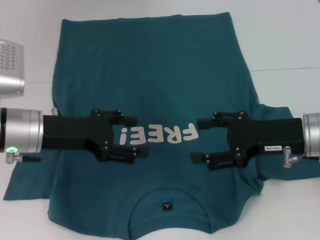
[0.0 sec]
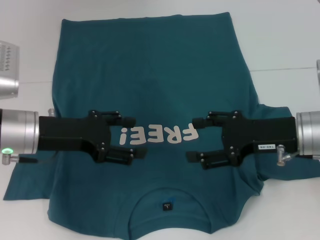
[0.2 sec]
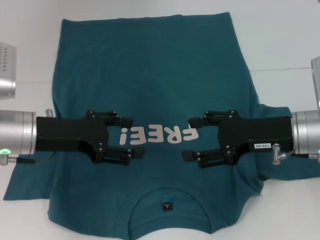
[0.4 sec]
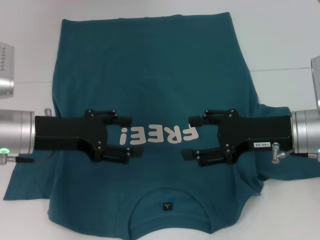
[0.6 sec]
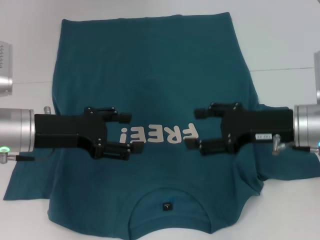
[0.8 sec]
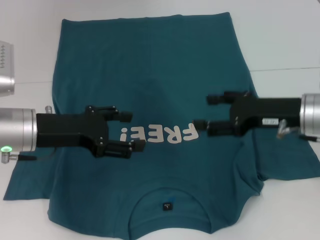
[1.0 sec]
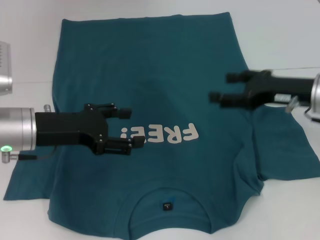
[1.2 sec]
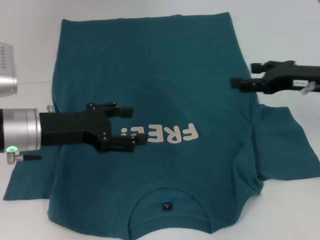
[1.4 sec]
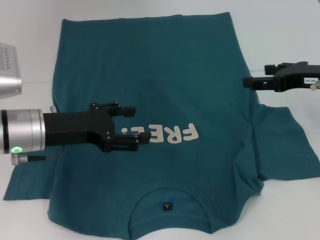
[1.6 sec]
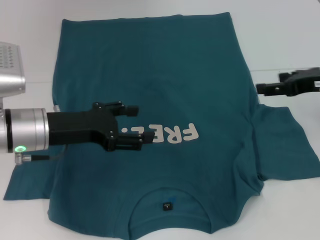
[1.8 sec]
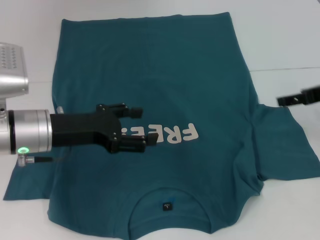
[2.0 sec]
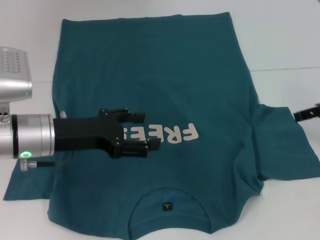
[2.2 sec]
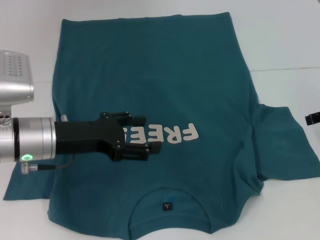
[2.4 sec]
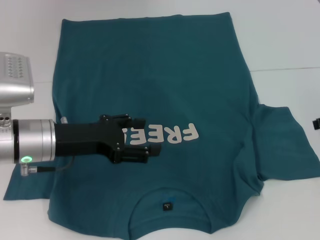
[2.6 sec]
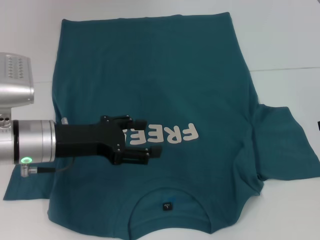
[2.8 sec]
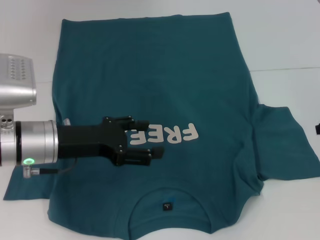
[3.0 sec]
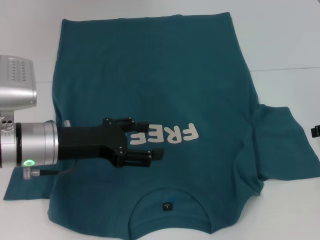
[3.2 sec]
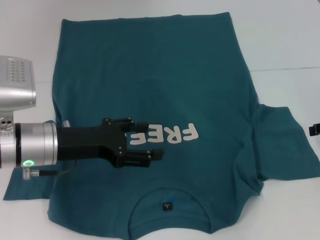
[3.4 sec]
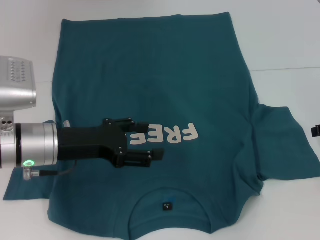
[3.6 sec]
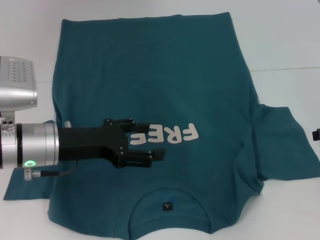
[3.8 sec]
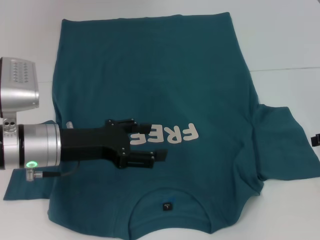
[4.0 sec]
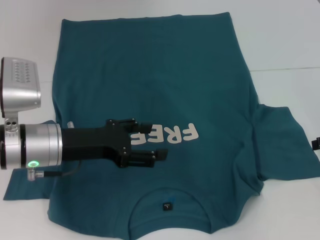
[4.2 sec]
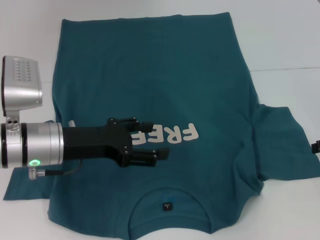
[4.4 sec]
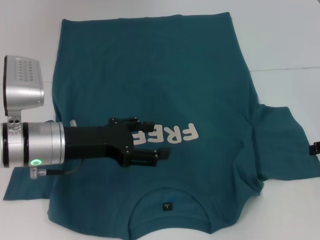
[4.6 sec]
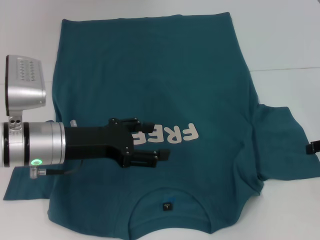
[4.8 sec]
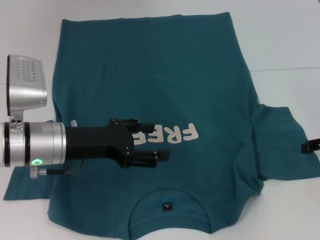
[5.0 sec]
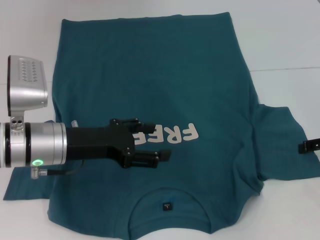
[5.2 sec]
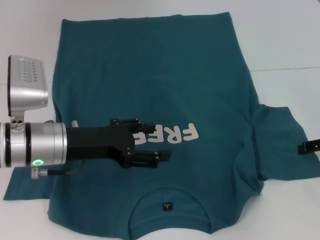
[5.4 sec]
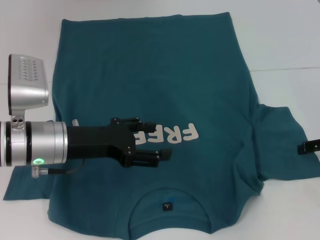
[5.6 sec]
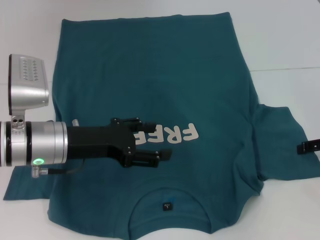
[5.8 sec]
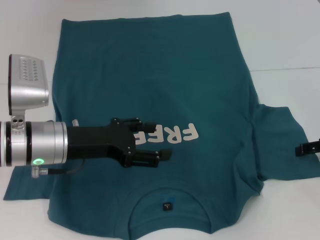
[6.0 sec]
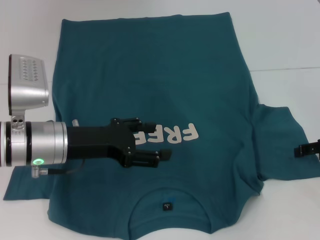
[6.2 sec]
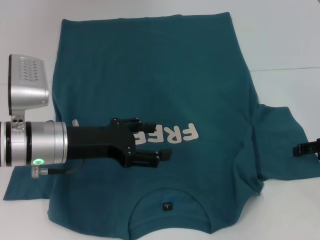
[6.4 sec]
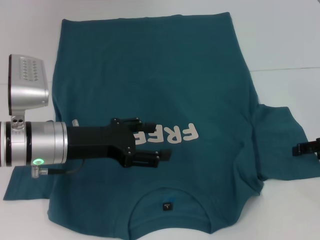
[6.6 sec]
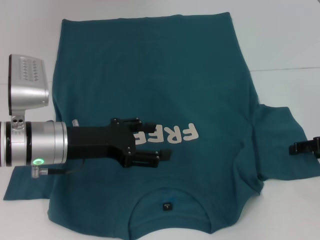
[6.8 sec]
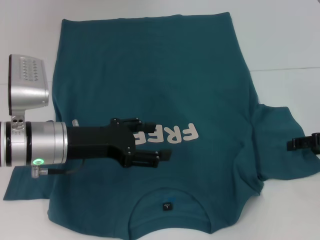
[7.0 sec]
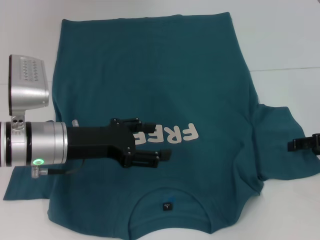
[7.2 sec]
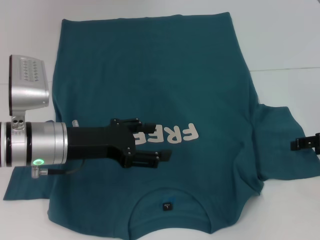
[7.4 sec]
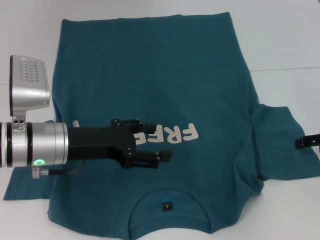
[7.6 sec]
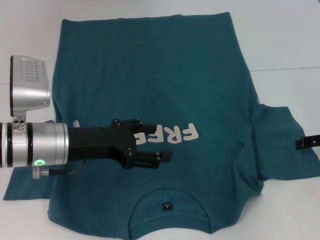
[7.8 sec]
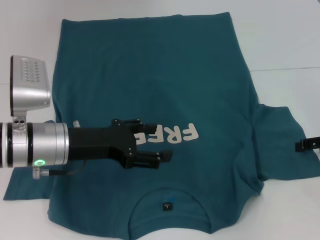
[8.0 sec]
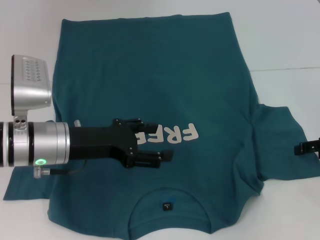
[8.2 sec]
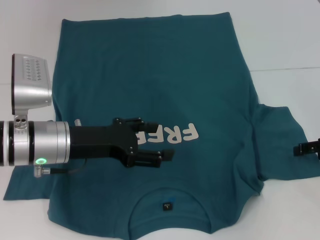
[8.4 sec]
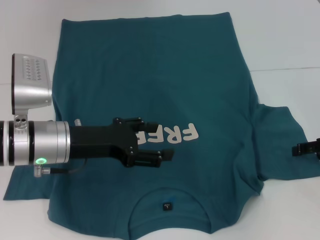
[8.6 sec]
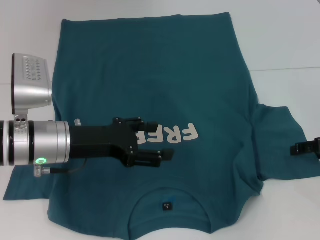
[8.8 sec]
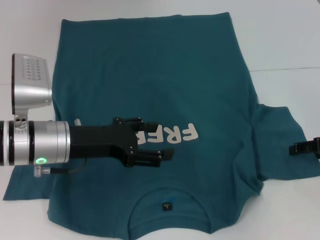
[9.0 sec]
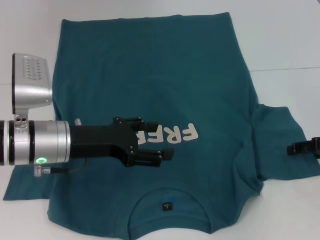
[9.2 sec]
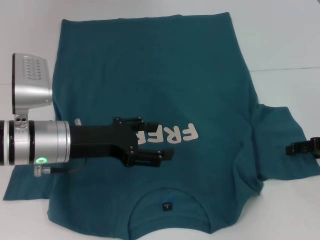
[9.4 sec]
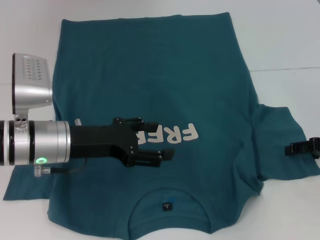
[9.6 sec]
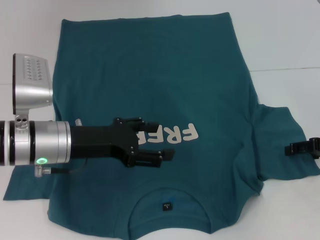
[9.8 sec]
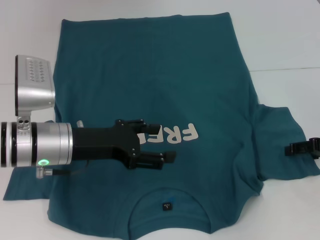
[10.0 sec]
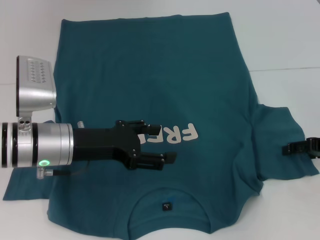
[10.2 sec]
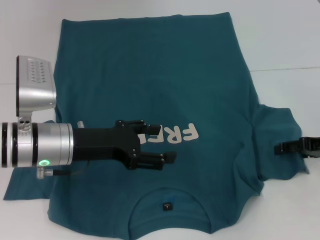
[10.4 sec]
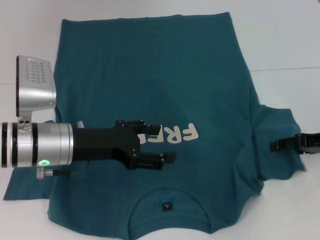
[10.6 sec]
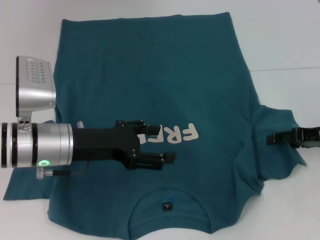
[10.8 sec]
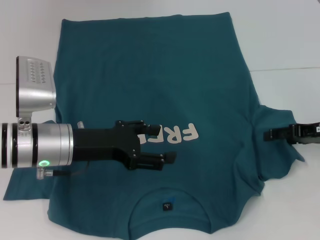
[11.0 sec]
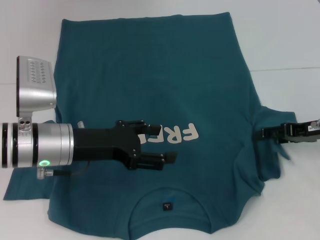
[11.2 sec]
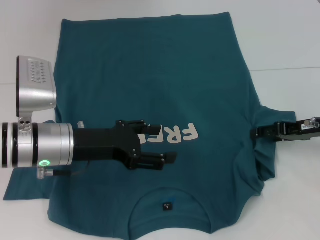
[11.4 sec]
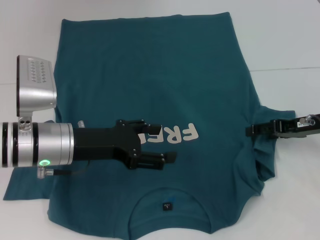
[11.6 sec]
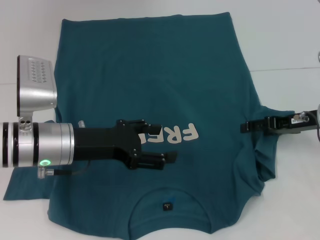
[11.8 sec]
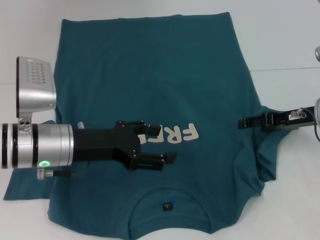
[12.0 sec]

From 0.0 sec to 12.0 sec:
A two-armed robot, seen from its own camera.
From 0.0 sec to 1.6 sec: The right gripper is displaced to the right and forward by some 10 cm.
From 1.6 sec to 3.0 sec: The right gripper heads to the right, covering about 10 cm.
From 3.0 sec to 6.0 sec: There are only small adjustments of the grippers.
From 6.0 sec to 9.0 sec: Neither gripper changes place.
From 9.0 sec to 10.4 sec: The grippers stay close to where they were, moving slightly.
From 10.4 sec to 12.0 sec: The right gripper goes roughly 5 cm to the left.

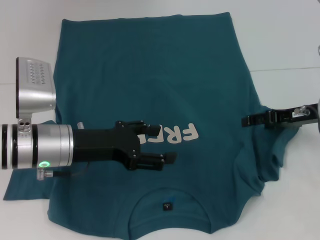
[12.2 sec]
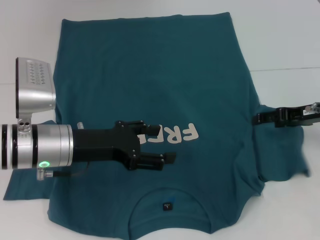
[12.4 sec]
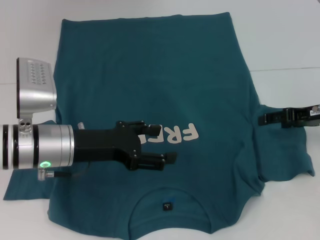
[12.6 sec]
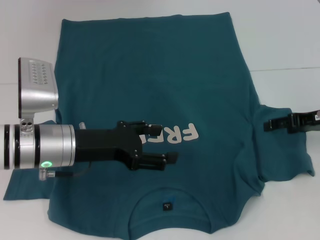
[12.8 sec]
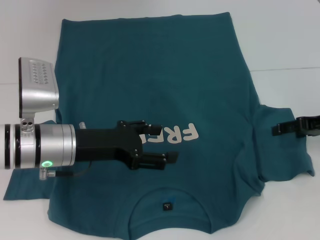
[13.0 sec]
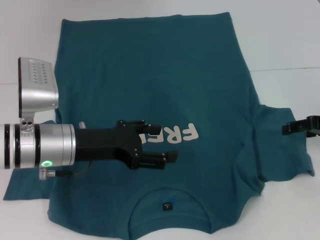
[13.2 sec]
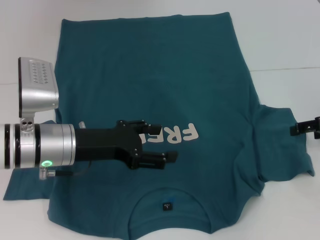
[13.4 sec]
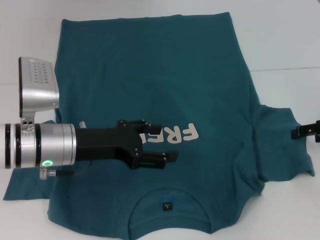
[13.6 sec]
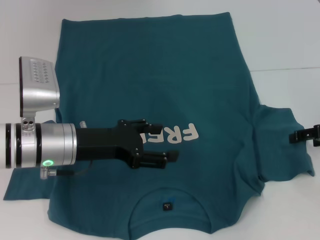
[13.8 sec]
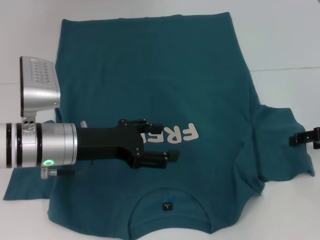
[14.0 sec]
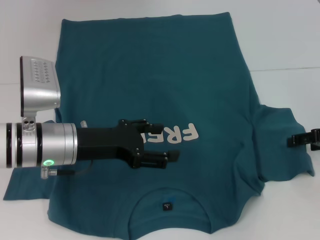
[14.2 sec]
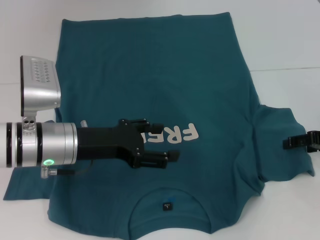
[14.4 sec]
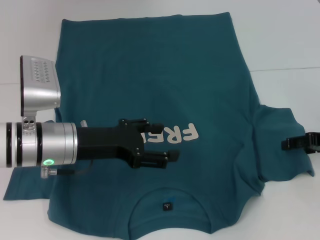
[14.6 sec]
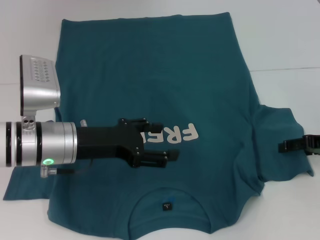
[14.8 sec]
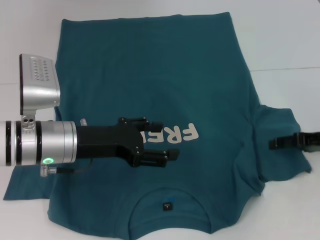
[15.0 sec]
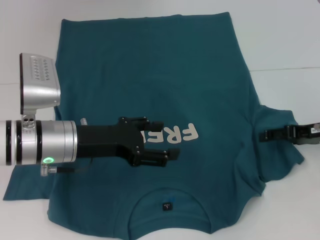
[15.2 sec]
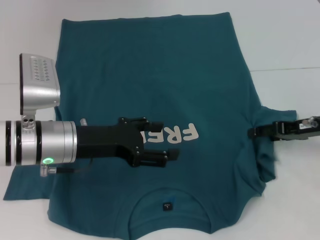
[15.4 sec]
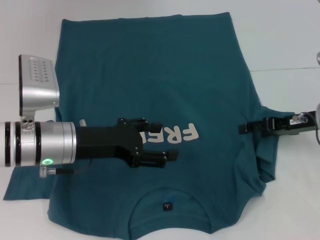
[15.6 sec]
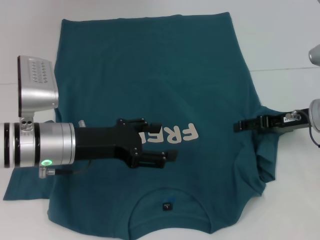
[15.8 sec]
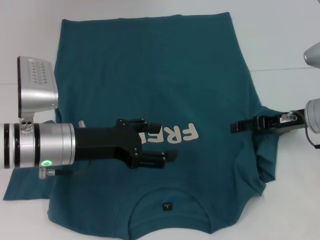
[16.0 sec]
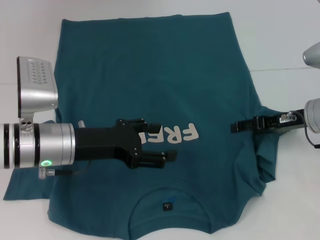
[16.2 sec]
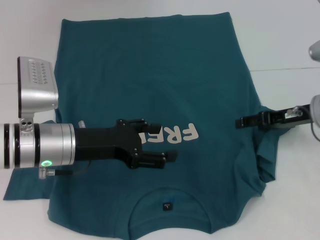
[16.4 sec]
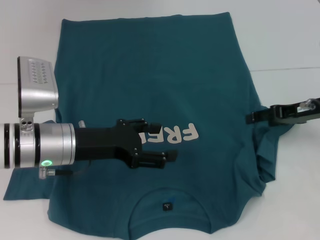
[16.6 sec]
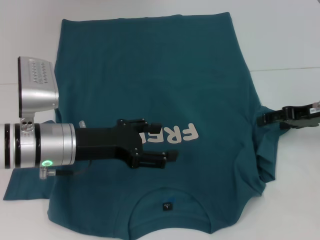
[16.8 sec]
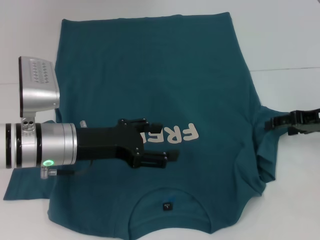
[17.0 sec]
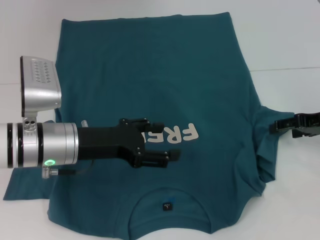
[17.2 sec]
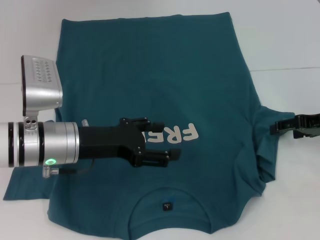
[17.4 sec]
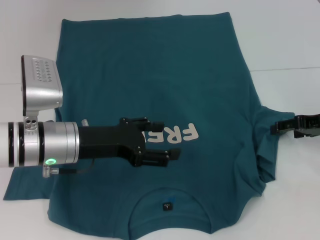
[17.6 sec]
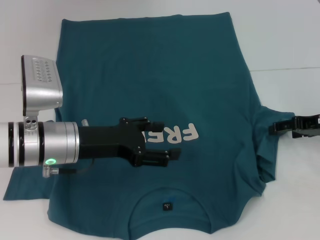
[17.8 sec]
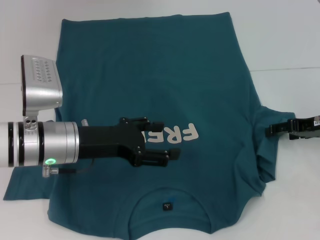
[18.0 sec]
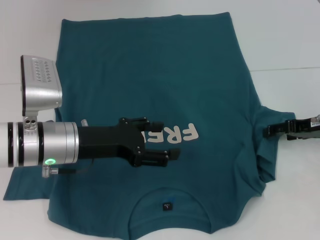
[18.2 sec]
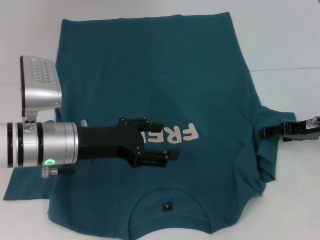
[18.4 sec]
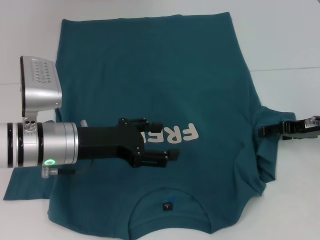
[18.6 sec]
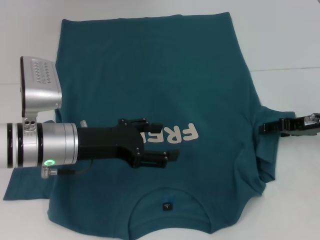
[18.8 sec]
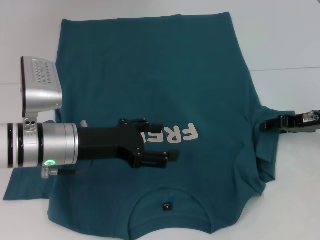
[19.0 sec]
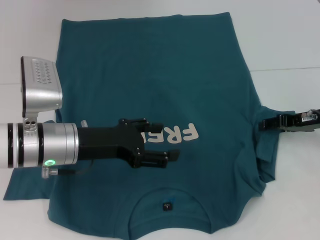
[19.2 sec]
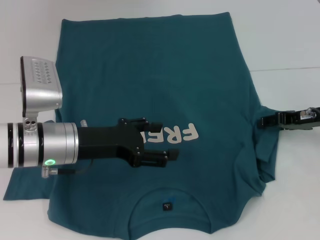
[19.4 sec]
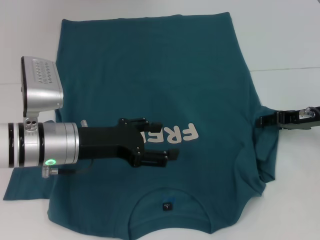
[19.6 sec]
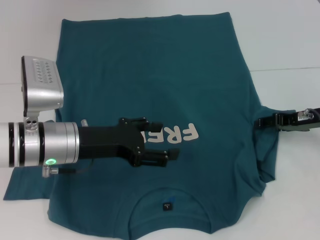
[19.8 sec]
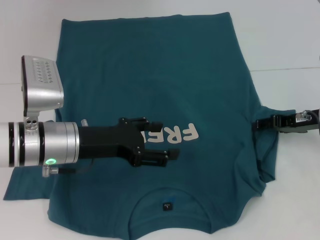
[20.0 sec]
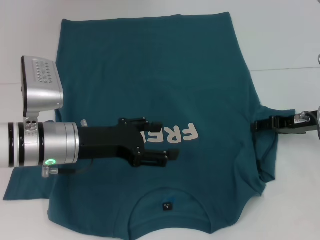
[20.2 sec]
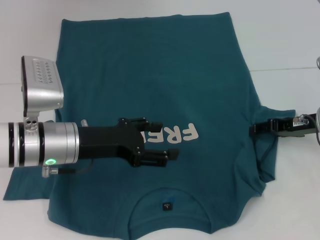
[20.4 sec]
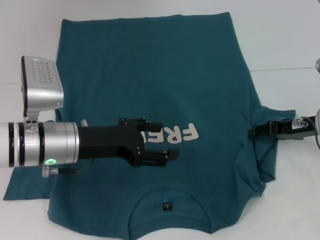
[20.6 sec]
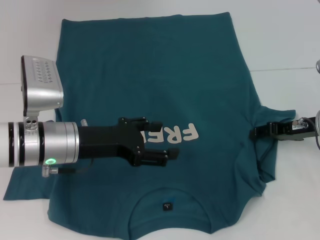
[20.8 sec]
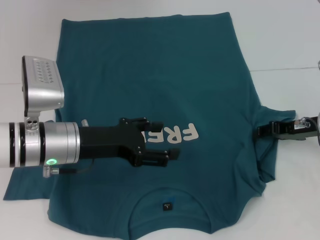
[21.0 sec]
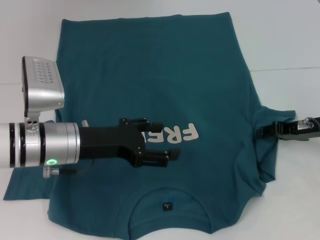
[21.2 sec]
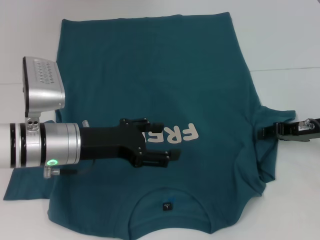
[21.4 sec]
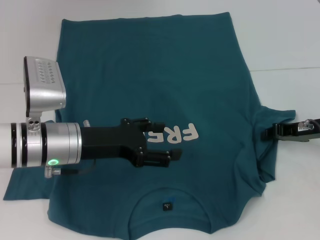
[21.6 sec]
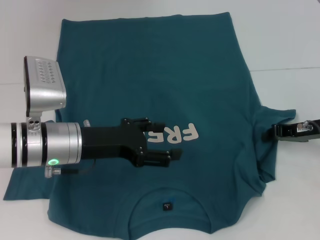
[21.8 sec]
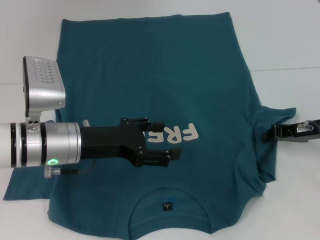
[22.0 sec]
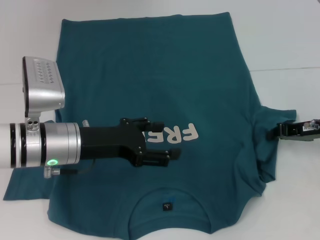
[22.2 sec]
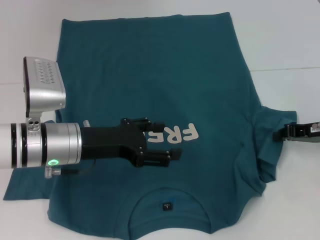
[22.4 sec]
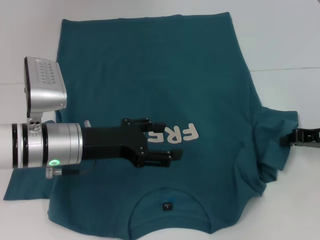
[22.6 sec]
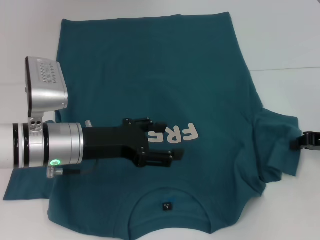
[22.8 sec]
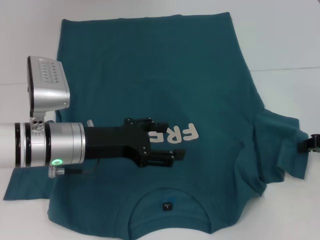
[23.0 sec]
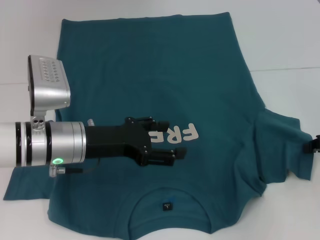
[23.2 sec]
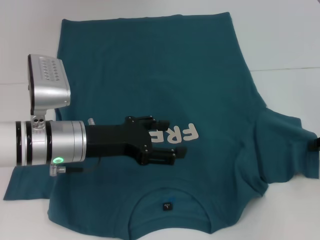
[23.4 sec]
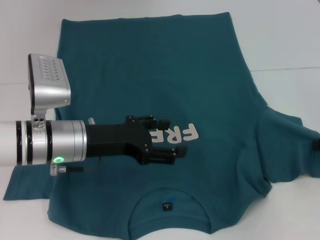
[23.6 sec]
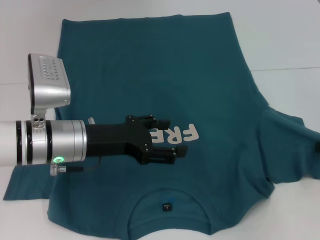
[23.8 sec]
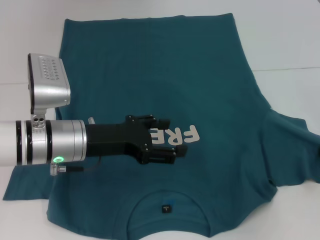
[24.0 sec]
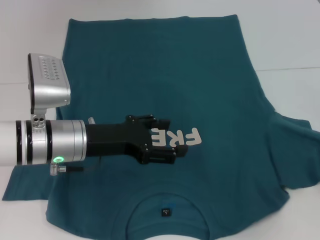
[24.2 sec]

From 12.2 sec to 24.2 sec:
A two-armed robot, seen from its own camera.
From 12.2 sec to 13.8 sec: The right gripper goes approximately 5 cm to the right.
From 13.8 sec to 15.2 sec: The grippers make only small movements.
From 15.2 sec to 21.2 sec: The grippers stay close to where they were, moving slightly.
From 21.2 sec to 22.6 sec: The right gripper closes its fingers.
From 22.6 sec to 24.2 sec: The right gripper moves to the right, roughly 5 cm.
